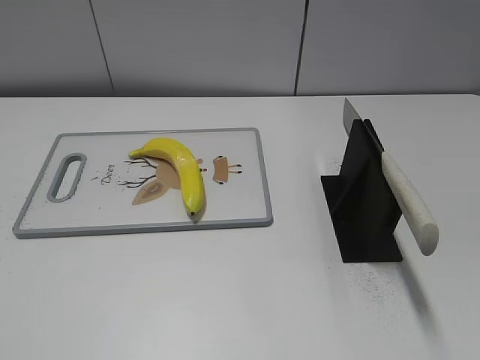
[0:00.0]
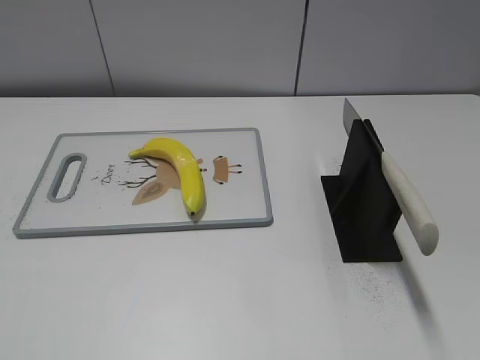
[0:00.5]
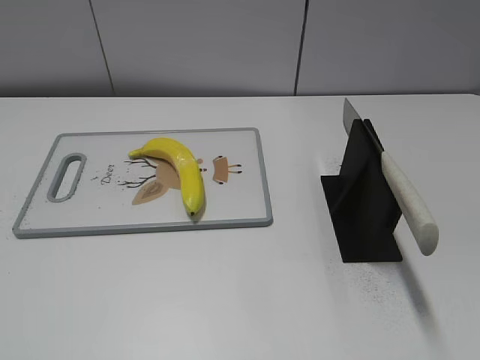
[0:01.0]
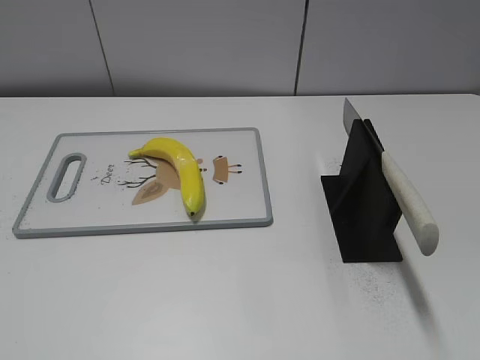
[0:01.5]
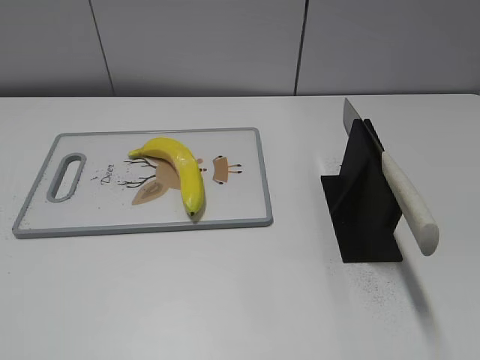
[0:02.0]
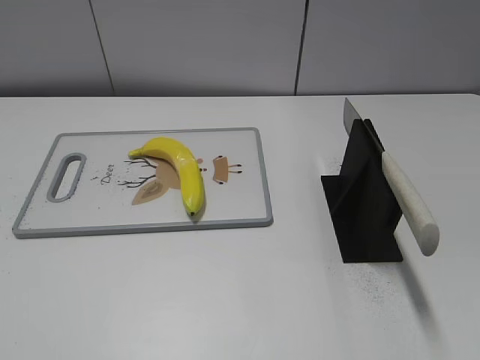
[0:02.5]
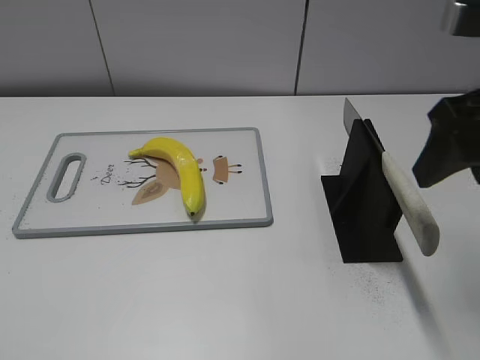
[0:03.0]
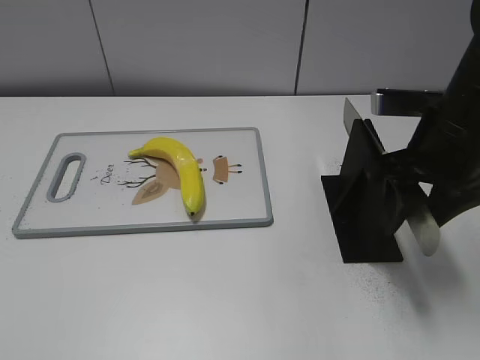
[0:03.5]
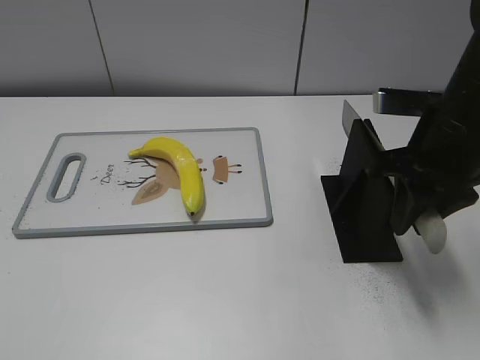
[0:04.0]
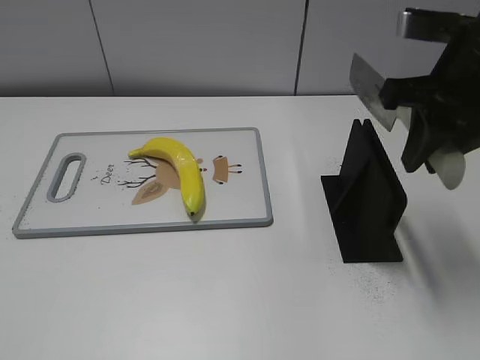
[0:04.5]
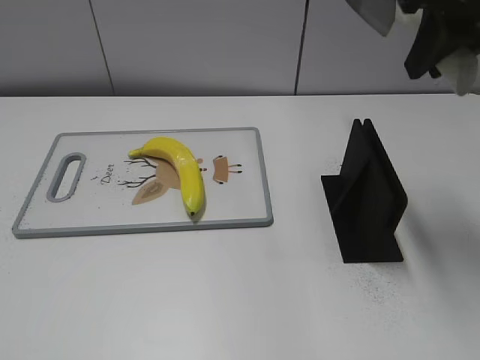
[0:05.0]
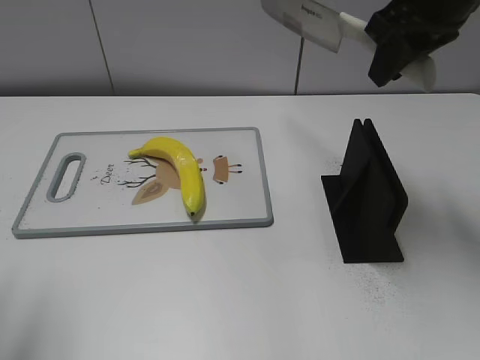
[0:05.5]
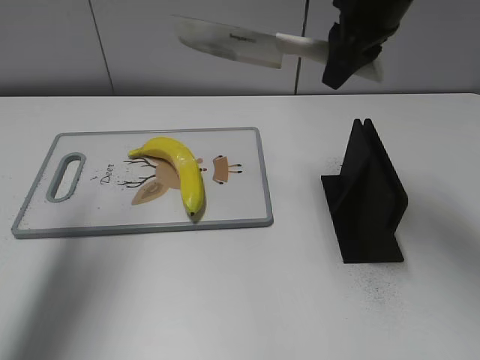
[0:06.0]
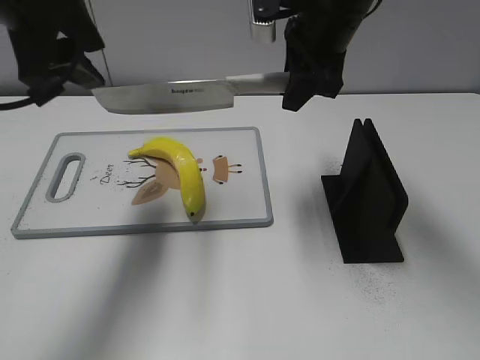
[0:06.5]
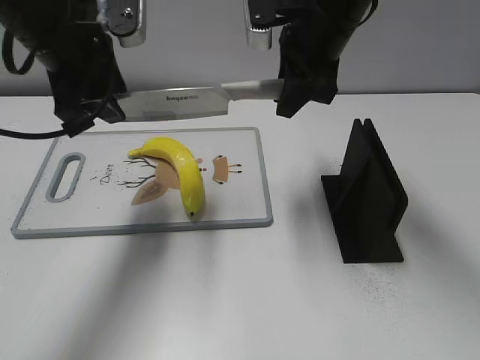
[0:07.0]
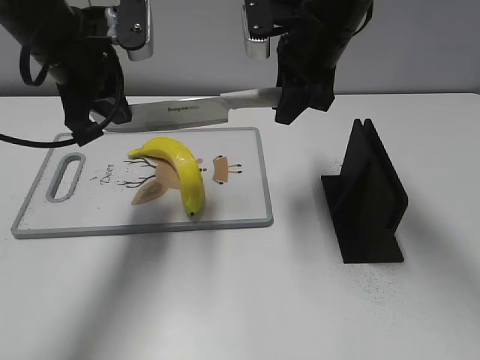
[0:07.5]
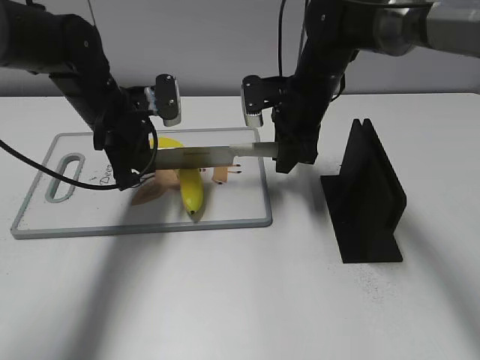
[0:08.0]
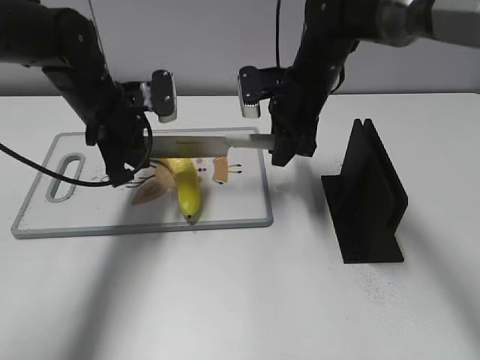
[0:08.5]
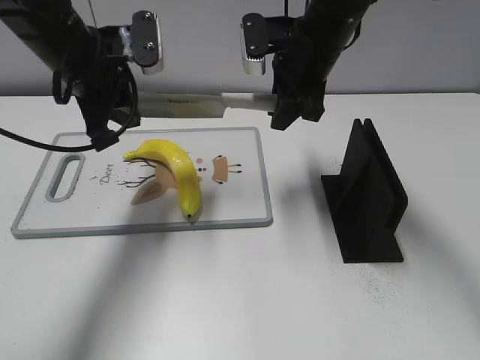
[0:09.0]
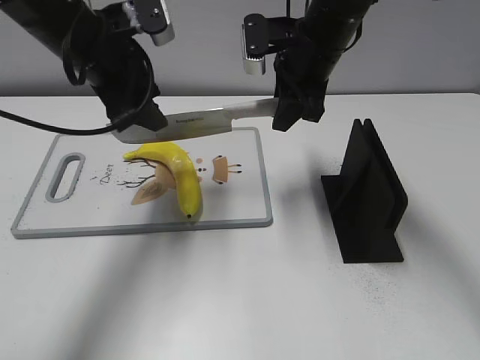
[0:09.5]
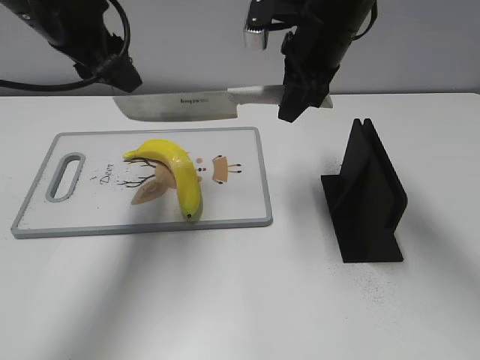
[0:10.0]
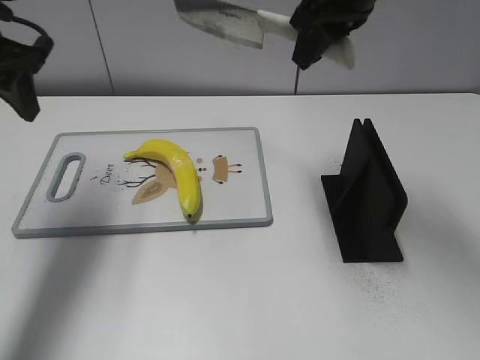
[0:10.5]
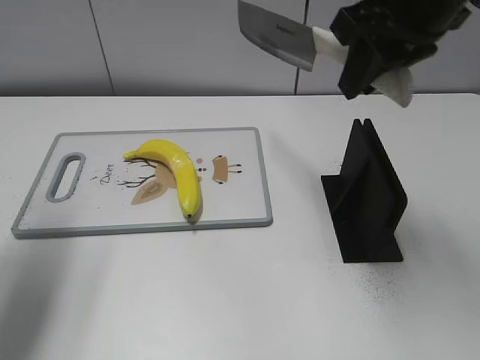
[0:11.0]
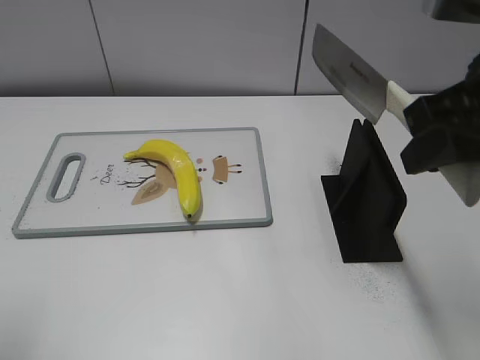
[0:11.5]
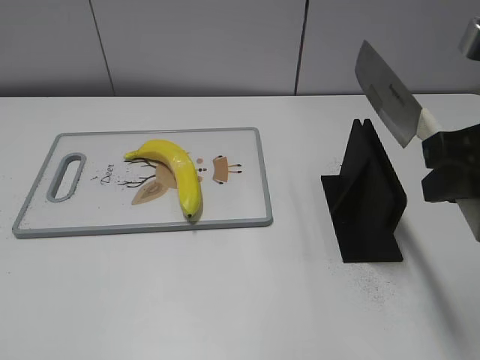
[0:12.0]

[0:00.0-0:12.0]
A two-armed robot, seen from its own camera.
Task of the whole recording: cut plastic banana.
Step, 0:00.0 to 0:04.0: Grab the knife handle with your right hand.
Step, 0:04.5 to 0:09.0: Lift the knife with your right hand.
Step, 0:09.5 to 0:10.0: Cut the banana with your right hand.
Step, 0:10.5 to 0:11.0: Lift the knife with your right hand.
0:02.0 to 0:04.0: The right gripper moves forward, downward and to the left, approximately 25 cm, and closes its fingers.
0:04.0 to 0:06.0: The right gripper travels forward, upward and to the left by roughly 15 cm. Meanwhile the left gripper heads forward, covering some 30 cm.
0:06.0 to 0:08.0: The left gripper goes some 25 cm downward, forward and to the right, and closes its fingers. Meanwhile the right gripper travels downward by some 15 cm.
0:08.0 to 0:10.0: The two grippers go some 15 cm upward. The left gripper opens.
0:10.0 to 0:12.0: The left gripper travels backward and to the left by roughly 35 cm, while the right gripper moves backward and to the right, about 25 cm.

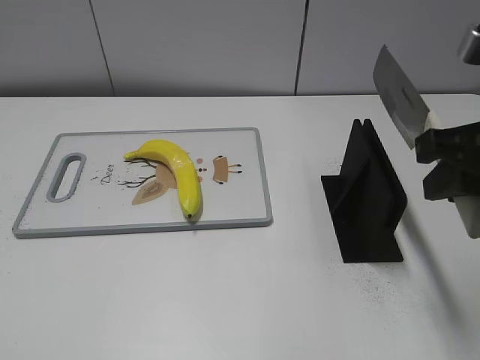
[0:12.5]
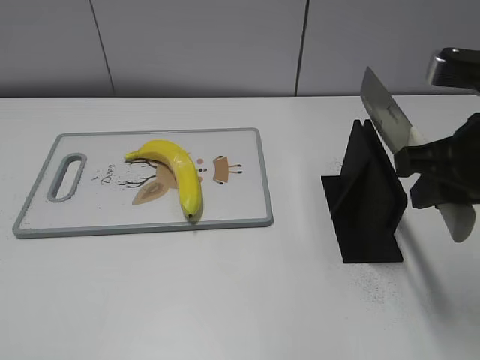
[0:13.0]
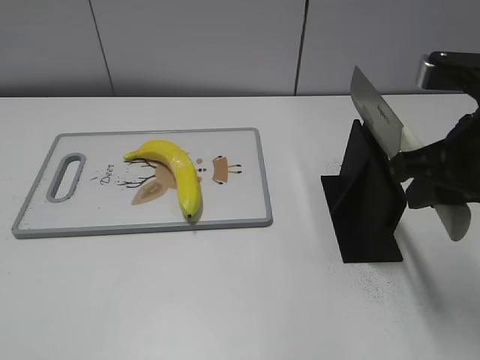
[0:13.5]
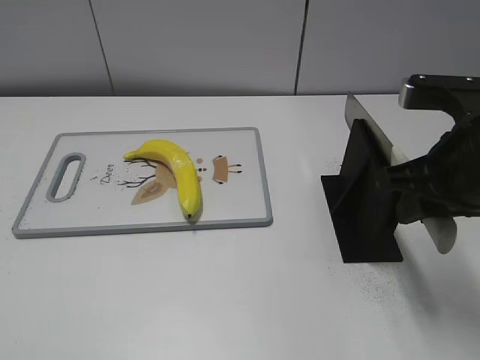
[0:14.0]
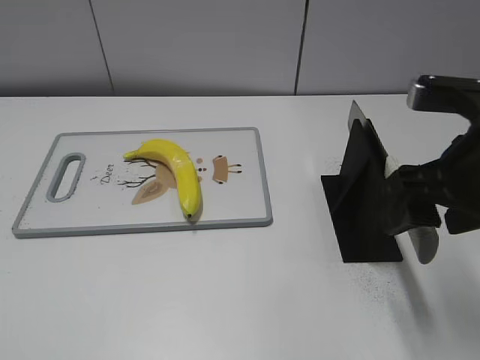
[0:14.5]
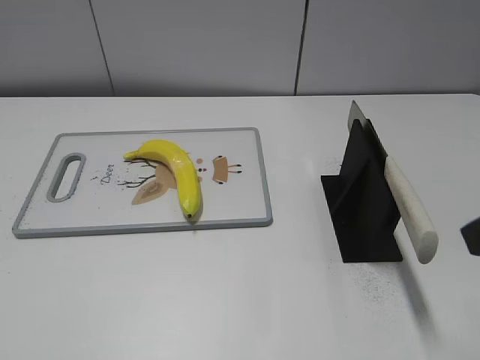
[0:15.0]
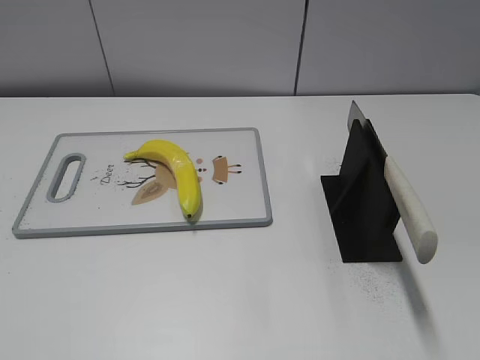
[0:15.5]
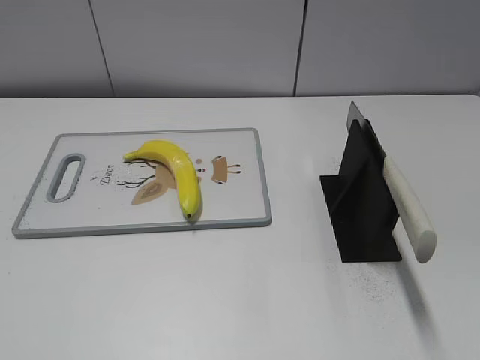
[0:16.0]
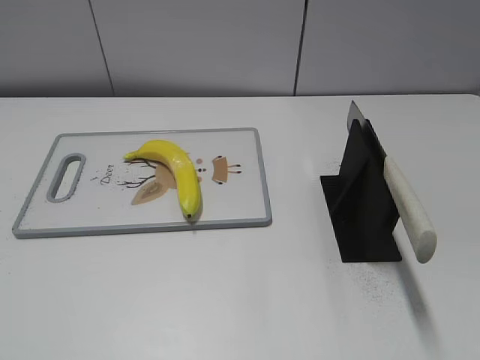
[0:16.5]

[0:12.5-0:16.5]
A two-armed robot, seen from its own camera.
Task of the whole recording: cut plastic banana.
Step, 0:12.5 to 0:16.5: Place the knife on the storage rack with your right hand.
0:12.5 to 0:14.5: The right gripper opens its fingers.
0:14.5 to 0:16.5: The right gripper travels backward and to the right by about 25 cm.
